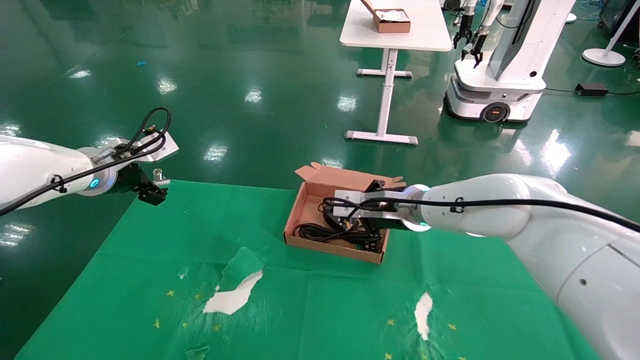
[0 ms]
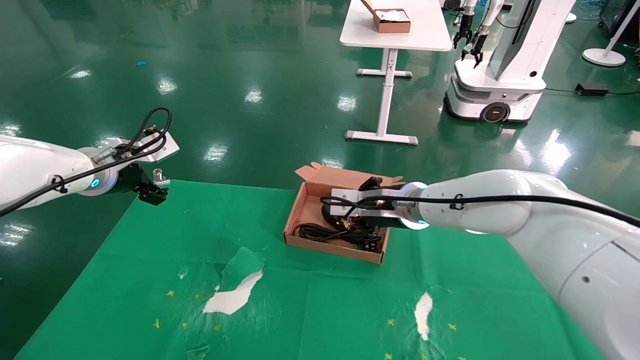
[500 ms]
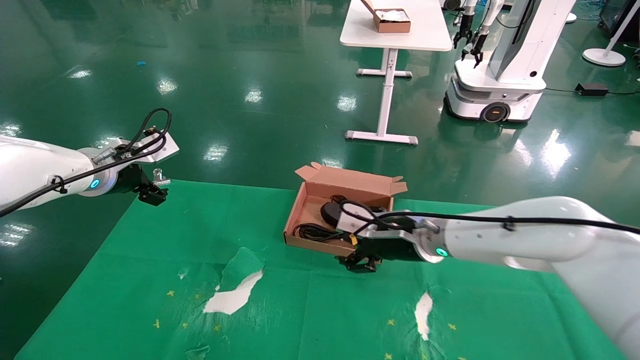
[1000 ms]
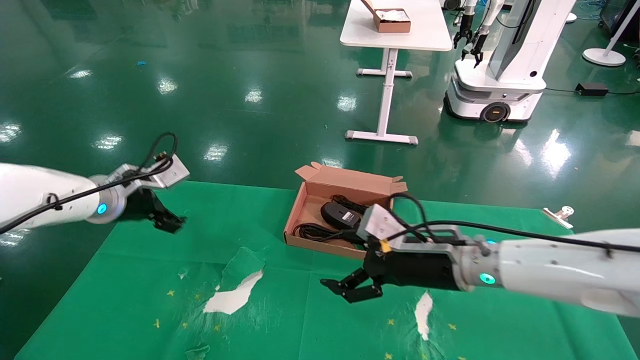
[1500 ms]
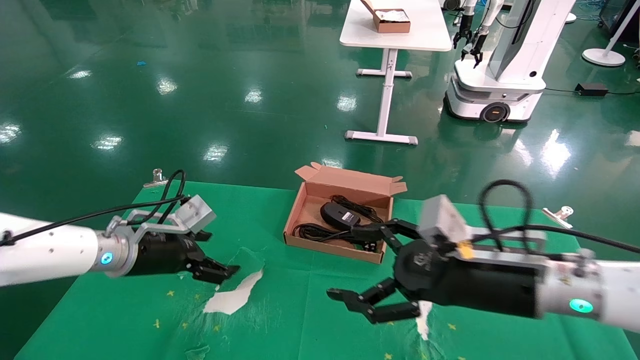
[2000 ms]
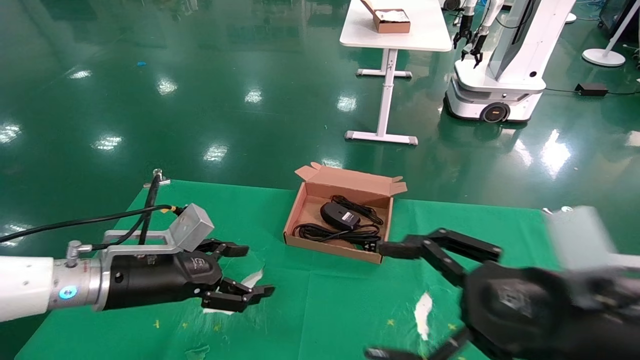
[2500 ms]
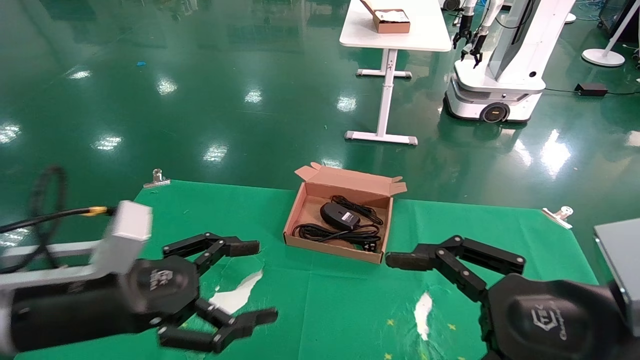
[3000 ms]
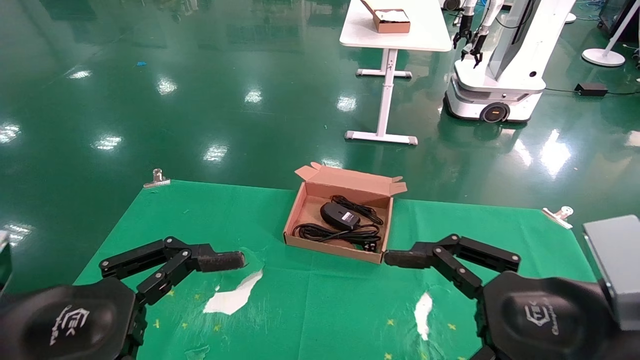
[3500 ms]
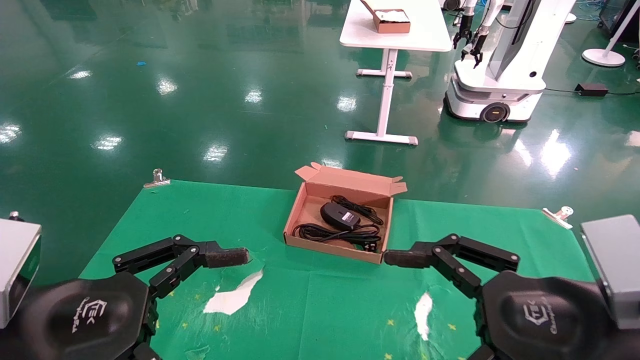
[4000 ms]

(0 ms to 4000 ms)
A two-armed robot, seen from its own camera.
0 ms - 2000 ms: The left gripper heads downward and to the right, covering some 10 cm, while the right gripper moves backward and to the right, roughly 20 cm, and opens its fingers.
2000 ms - 4000 ms: The left gripper shifts about 25 cm backward, while the right gripper travels backward by some 10 cm.
